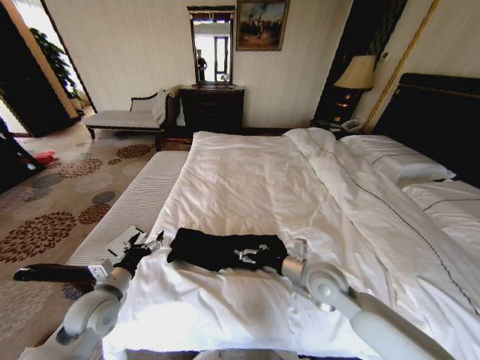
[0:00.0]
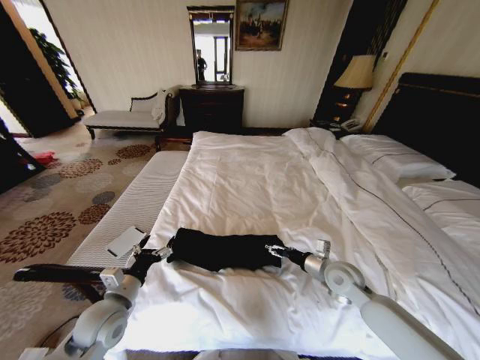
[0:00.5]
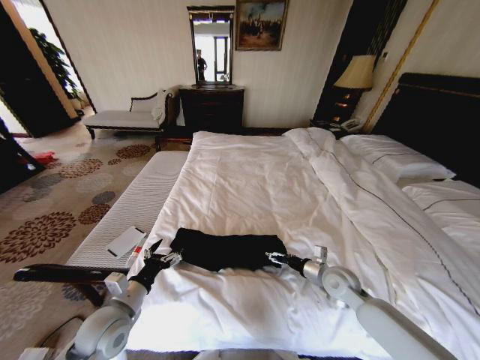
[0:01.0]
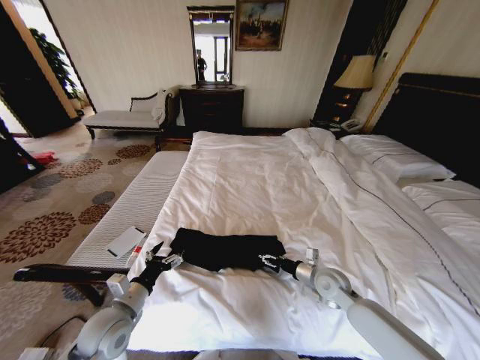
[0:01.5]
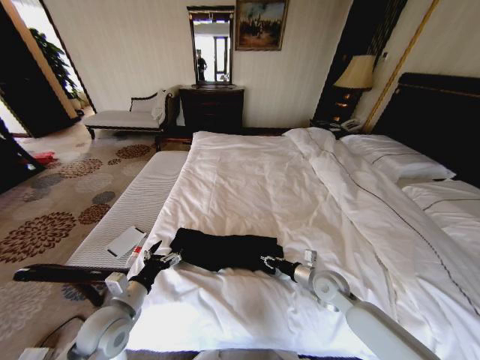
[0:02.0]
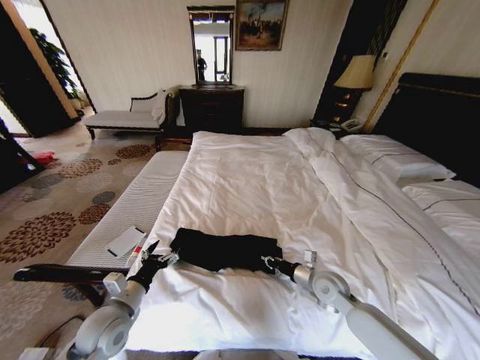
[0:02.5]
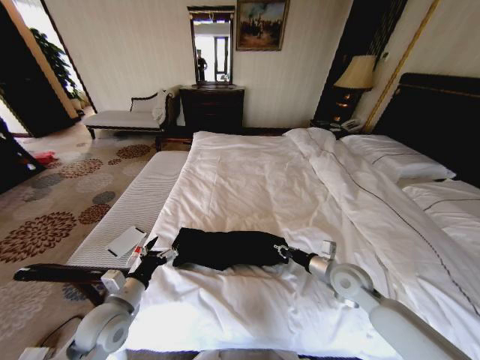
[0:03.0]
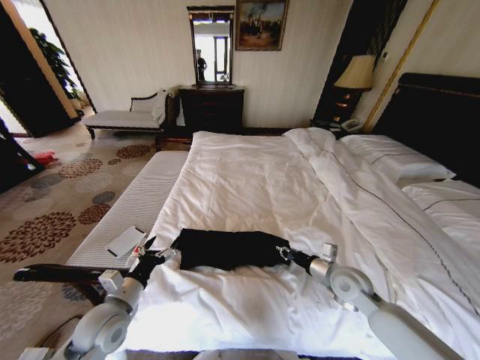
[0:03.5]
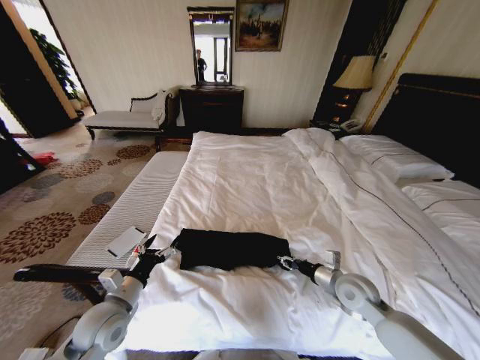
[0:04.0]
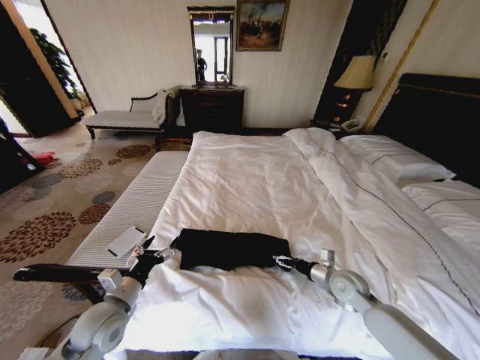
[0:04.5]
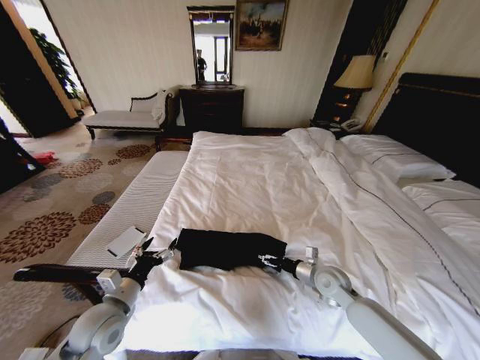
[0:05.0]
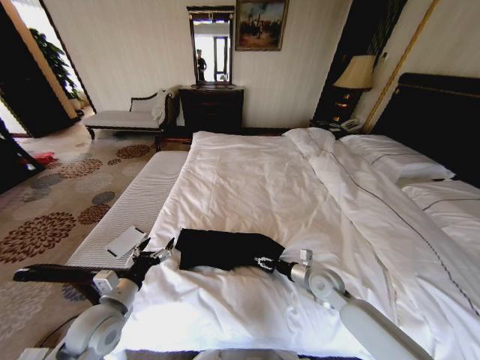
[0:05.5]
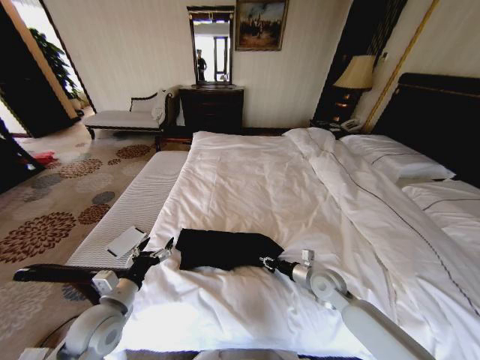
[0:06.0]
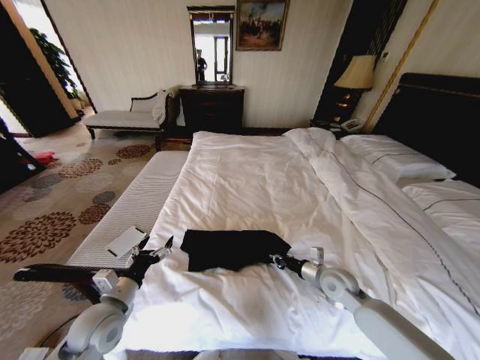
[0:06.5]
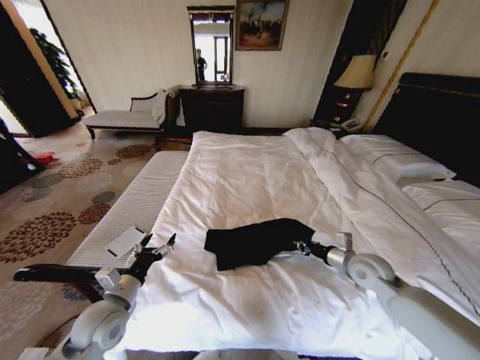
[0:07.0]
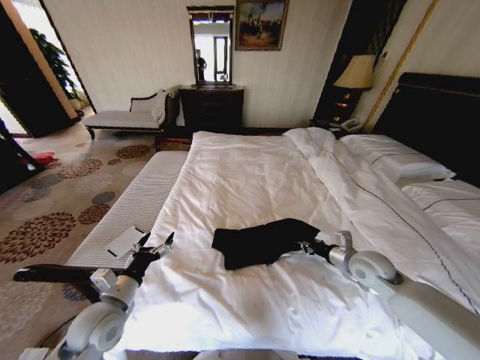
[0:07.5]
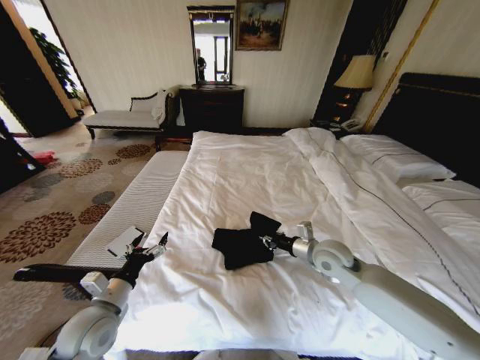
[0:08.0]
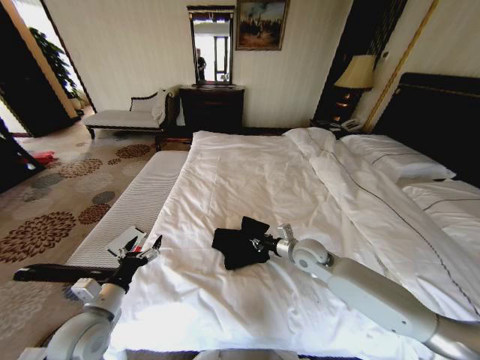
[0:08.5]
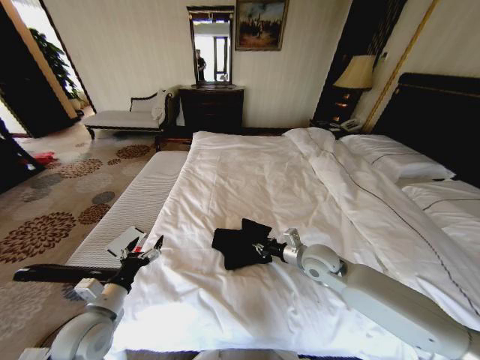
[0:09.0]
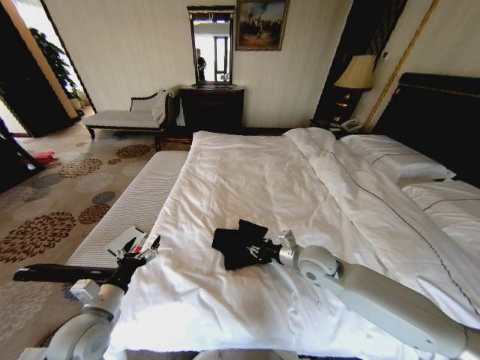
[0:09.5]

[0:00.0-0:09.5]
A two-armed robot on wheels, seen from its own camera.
Task of the whole recording: Fold the clothes on the bed.
0:00.0 to 0:02.0: The right gripper travels downward and to the right by roughly 10 cm, and closes its fingers; the left gripper moves some 5 cm.
0:02.0 to 0:04.0: The right gripper shifts by some 5 cm.
0:04.0 to 0:05.5: The right gripper moves roughly 10 cm, and opens up.
0:05.5 to 0:07.5: The right gripper is displaced to the right and upward by approximately 15 cm, and closes.
0:07.5 to 0:09.5: The right gripper is displaced to the left by approximately 15 cm.

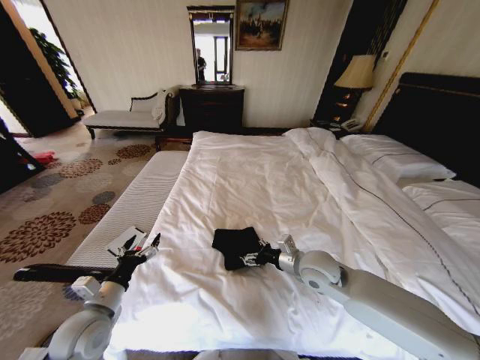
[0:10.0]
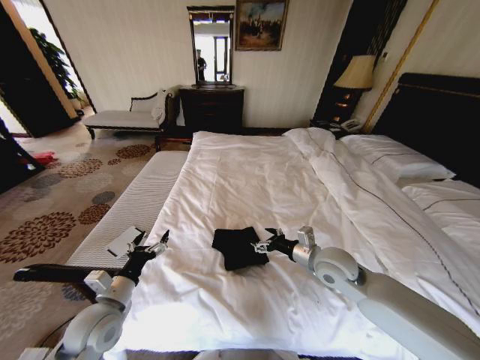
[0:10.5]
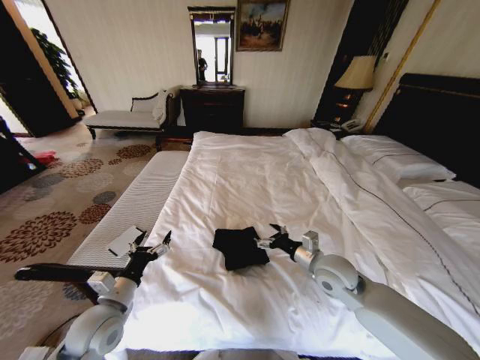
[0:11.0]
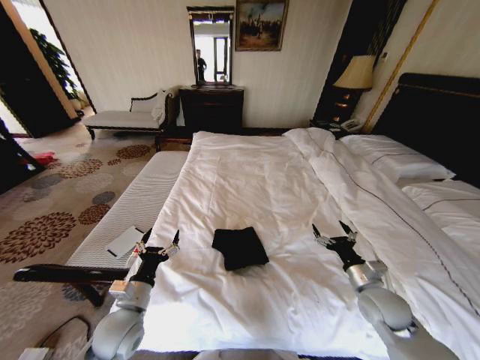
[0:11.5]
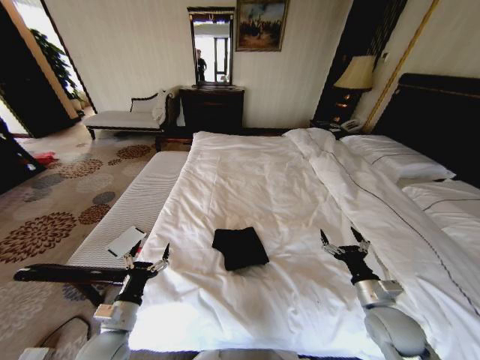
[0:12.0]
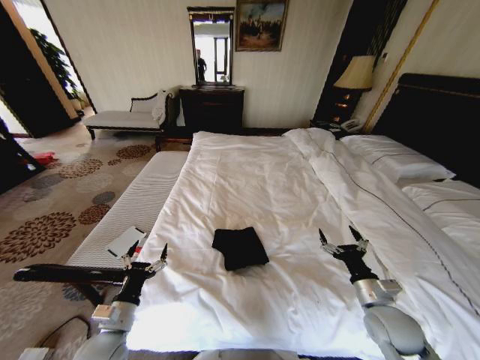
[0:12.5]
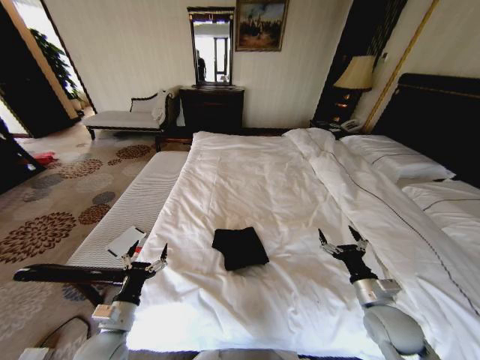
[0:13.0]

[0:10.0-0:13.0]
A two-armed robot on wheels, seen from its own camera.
Task of the whole recording: Fold the clothes on the bed.
0:10.0 to 0:11.5: The left gripper shifts some 5 cm to the right. The right gripper heads to the right, backward and downward, covering roughly 20 cm.
0:11.5 to 0:13.0: The left gripper changes place by some 5 cm.

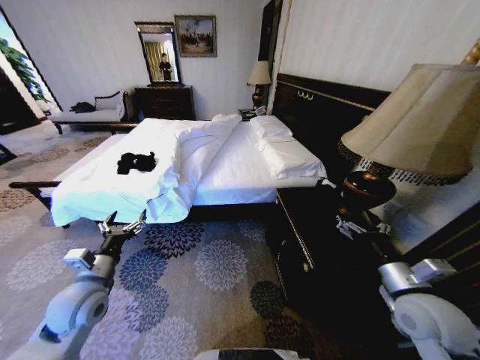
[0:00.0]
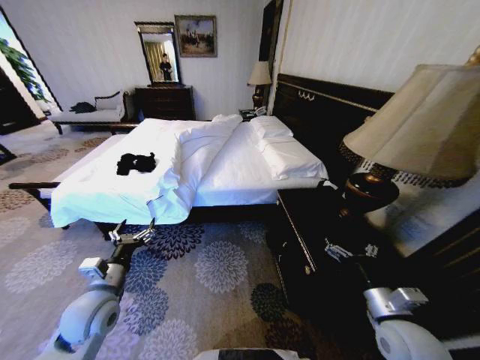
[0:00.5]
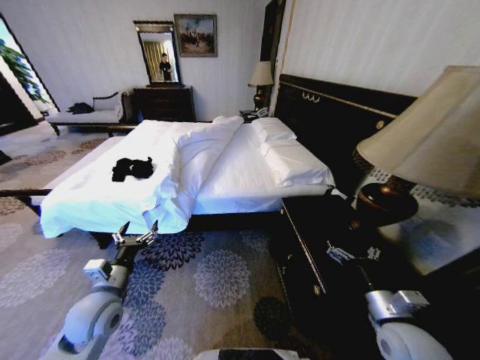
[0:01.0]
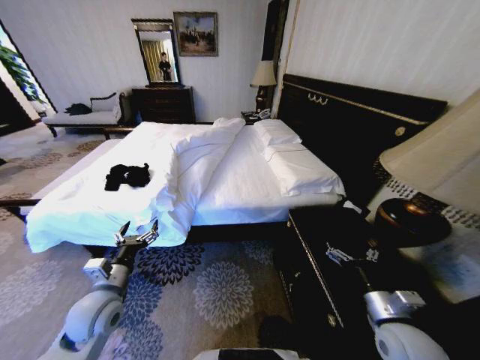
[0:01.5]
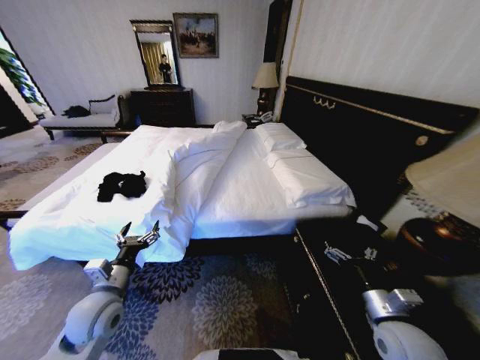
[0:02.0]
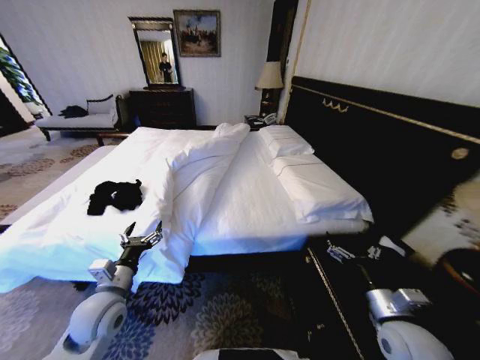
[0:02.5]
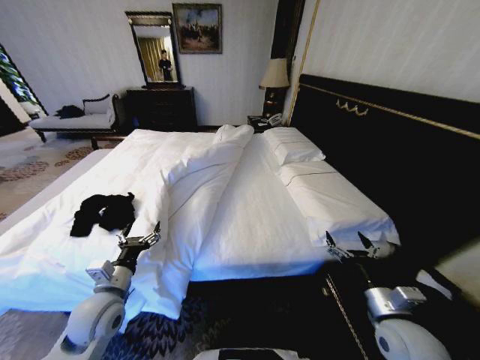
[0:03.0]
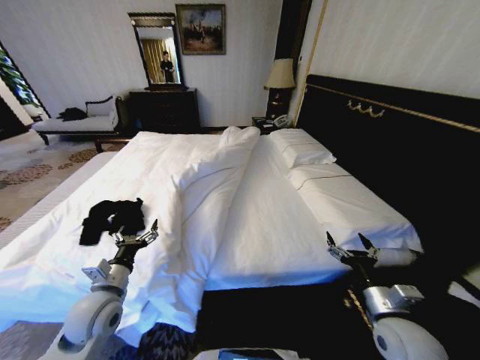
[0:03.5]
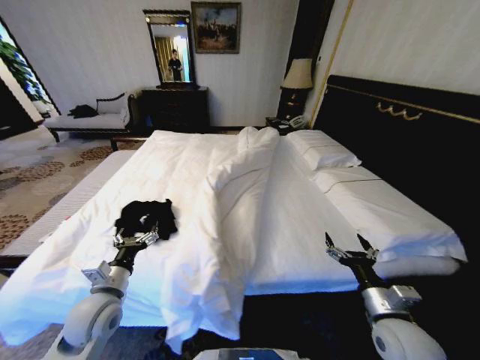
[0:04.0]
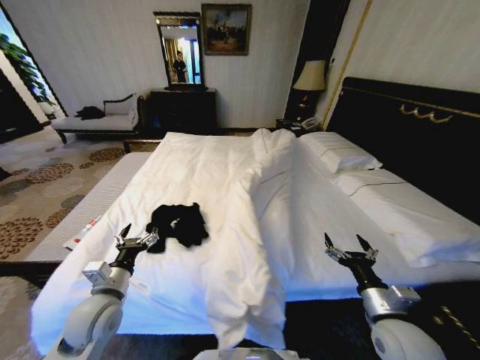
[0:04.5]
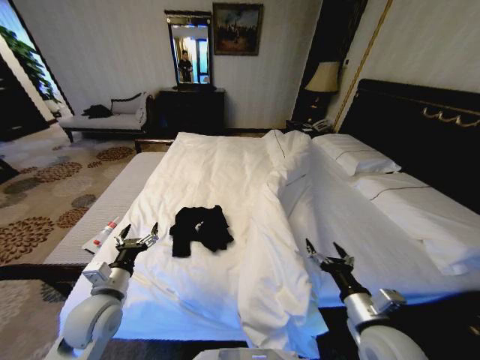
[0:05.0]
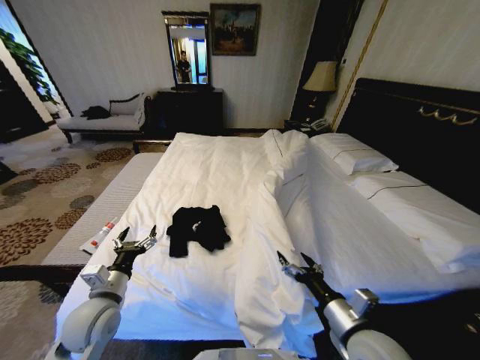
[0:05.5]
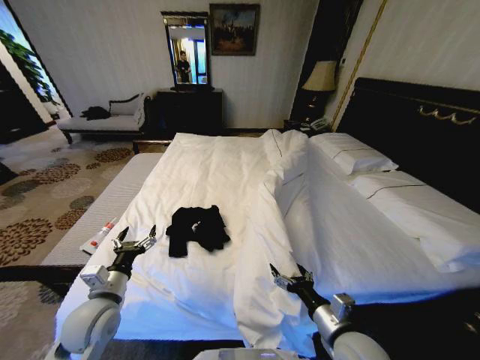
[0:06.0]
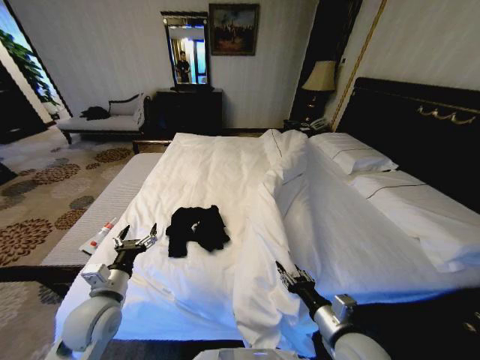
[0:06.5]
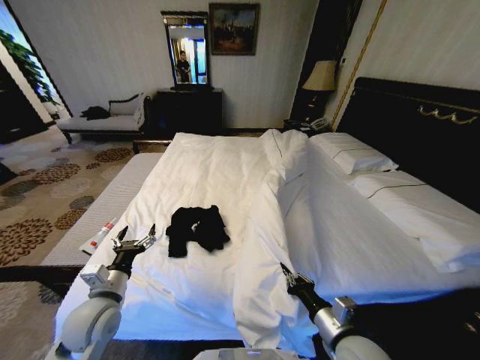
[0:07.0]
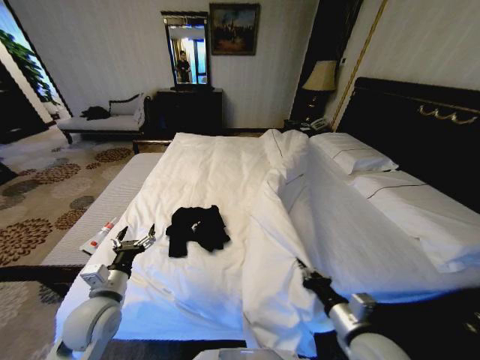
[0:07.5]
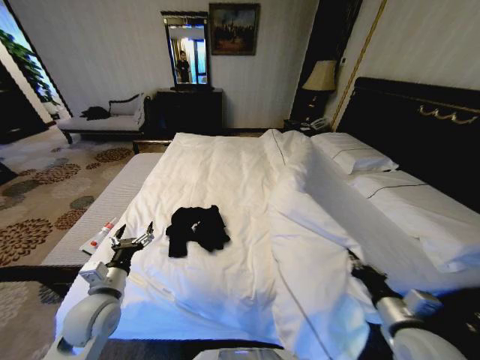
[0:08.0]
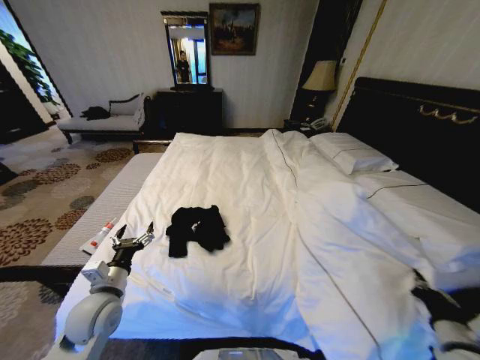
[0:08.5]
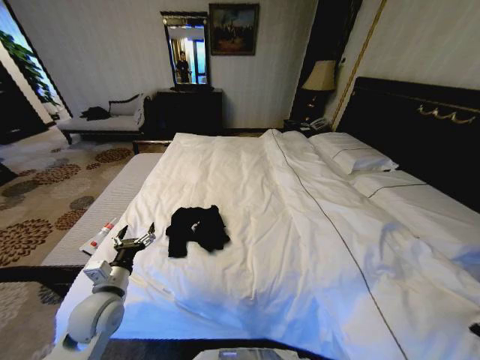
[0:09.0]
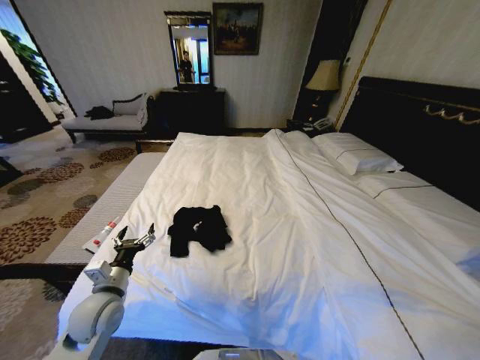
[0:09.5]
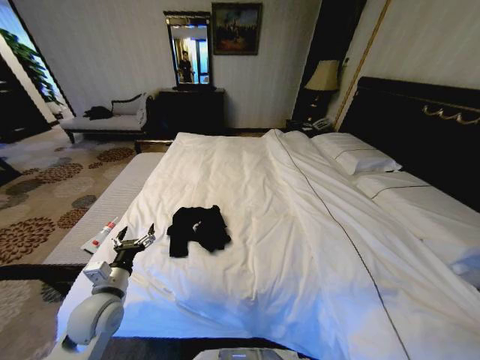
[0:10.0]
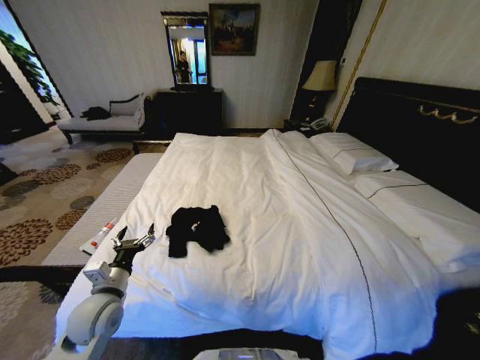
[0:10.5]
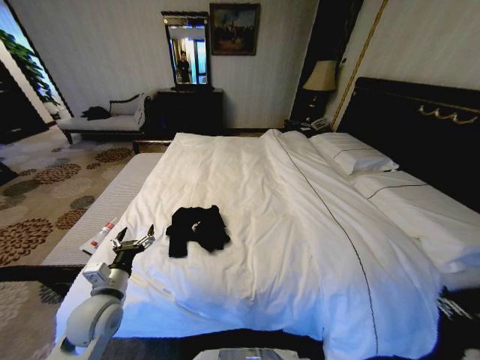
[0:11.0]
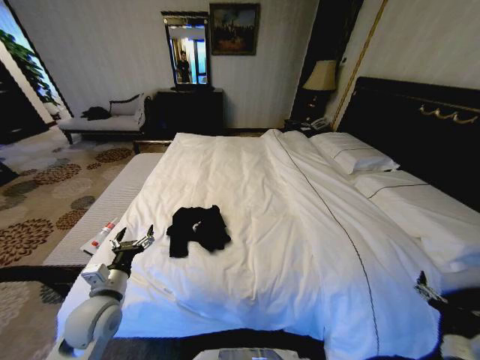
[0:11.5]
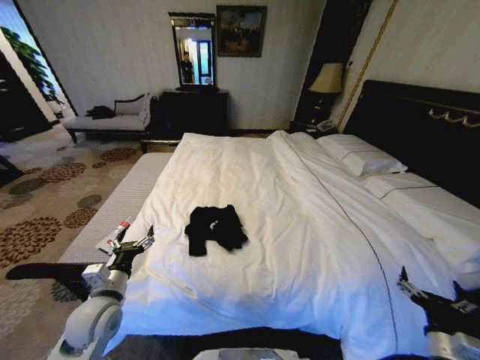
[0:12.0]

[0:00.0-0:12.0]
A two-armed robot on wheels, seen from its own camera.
Task of the whole recording: Fold the clothes on the bed.
0:04.0 to 0:06.0: The right gripper moves to the left, roughly 10 cm.
0:06.0 to 0:08.0: The right gripper heads to the right, covering approximately 10 cm, and closes.
0:08.0 to 0:10.0: The right gripper travels to the right, backward and downward by some 25 cm.
0:10.0 to 0:12.0: The right gripper goes some 15 cm to the left and forward, and opens up.

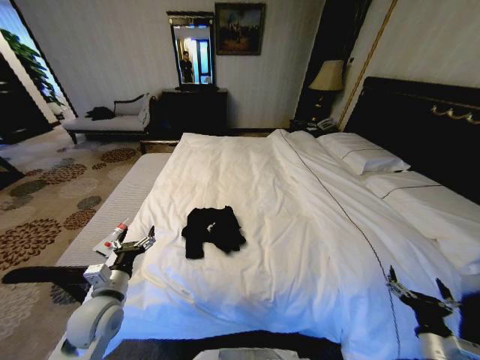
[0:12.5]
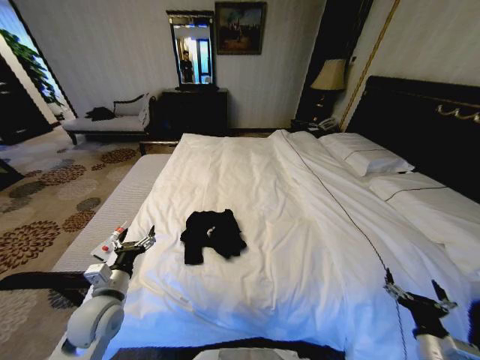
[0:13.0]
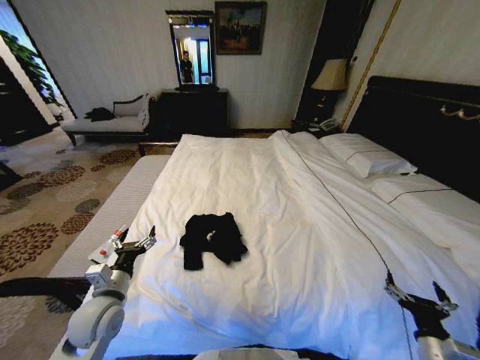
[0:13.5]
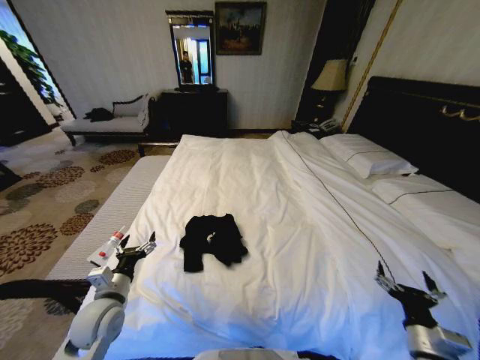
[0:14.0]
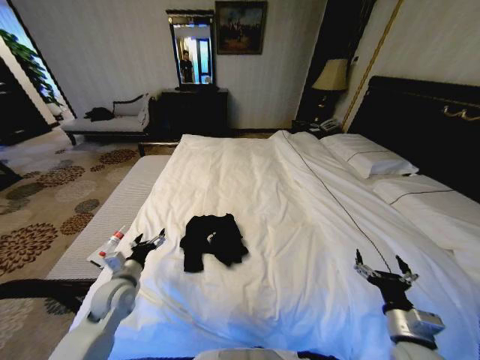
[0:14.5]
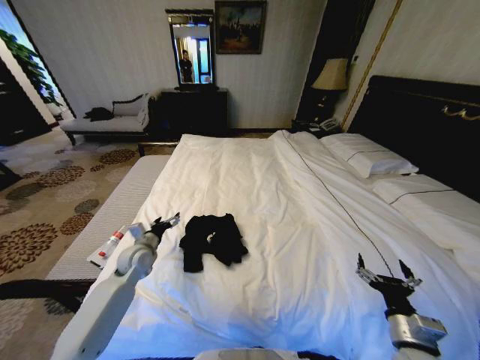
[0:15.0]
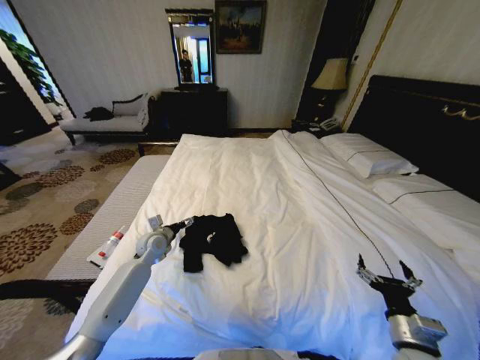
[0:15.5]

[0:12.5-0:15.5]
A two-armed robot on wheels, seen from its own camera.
Task of the whole recording: Fold the clothes on the bed.
0:12.5 to 0:14.0: The grippers move only a little.
0:14.0 to 0:15.5: The left gripper is displaced forward by roughly 20 cm.
